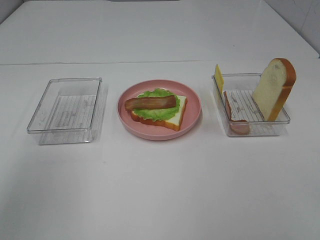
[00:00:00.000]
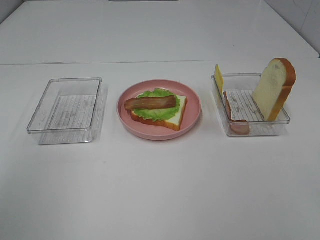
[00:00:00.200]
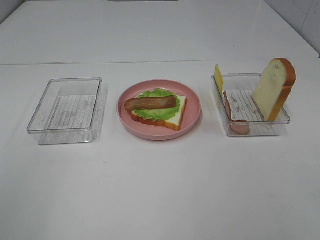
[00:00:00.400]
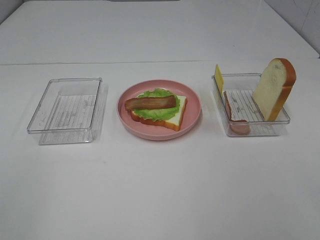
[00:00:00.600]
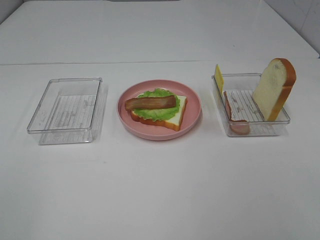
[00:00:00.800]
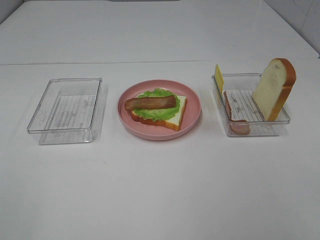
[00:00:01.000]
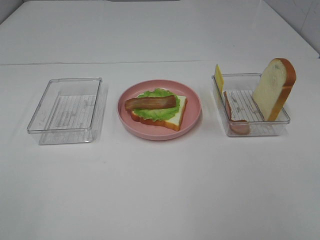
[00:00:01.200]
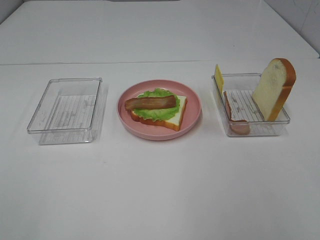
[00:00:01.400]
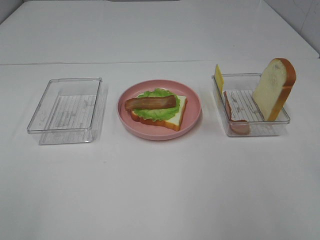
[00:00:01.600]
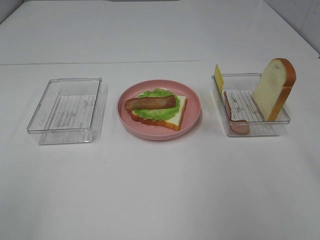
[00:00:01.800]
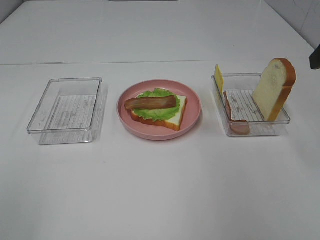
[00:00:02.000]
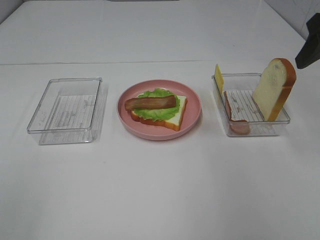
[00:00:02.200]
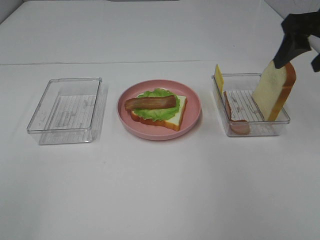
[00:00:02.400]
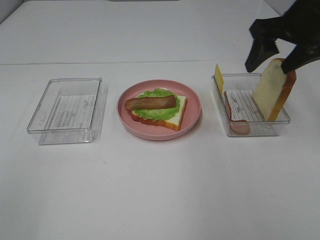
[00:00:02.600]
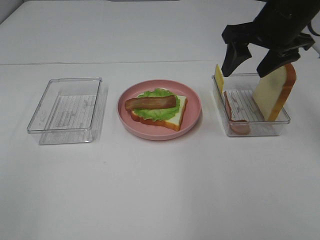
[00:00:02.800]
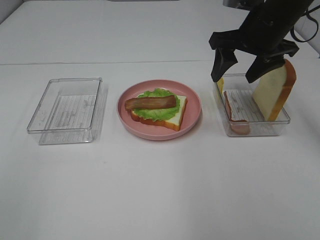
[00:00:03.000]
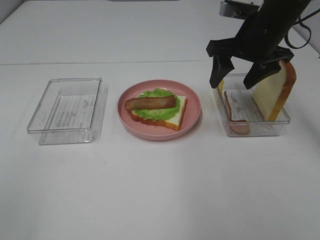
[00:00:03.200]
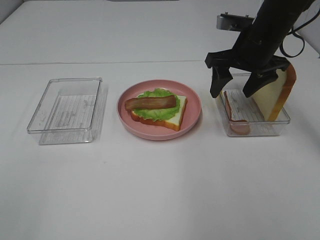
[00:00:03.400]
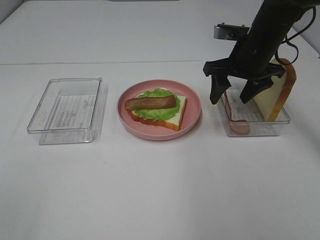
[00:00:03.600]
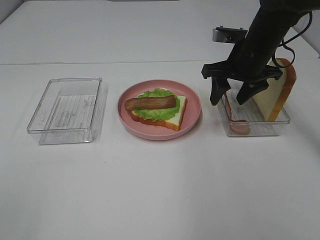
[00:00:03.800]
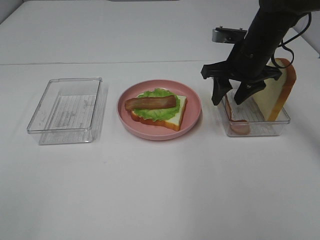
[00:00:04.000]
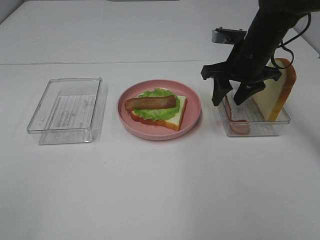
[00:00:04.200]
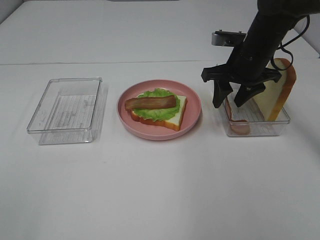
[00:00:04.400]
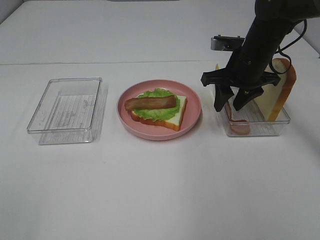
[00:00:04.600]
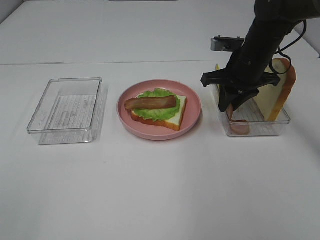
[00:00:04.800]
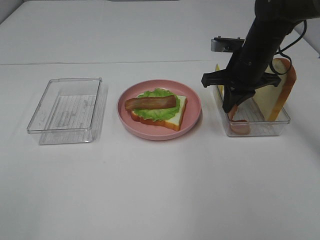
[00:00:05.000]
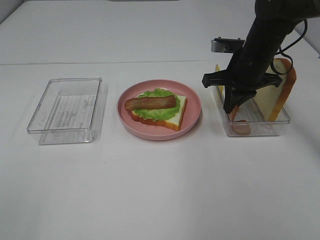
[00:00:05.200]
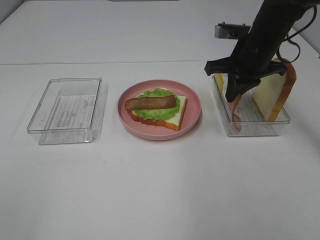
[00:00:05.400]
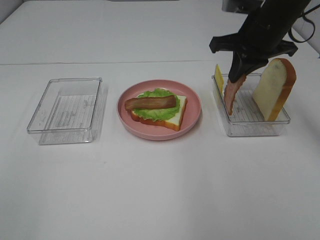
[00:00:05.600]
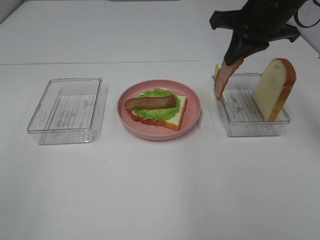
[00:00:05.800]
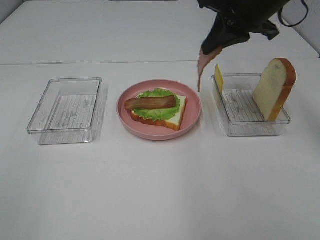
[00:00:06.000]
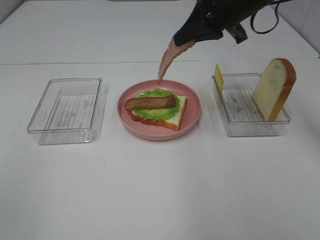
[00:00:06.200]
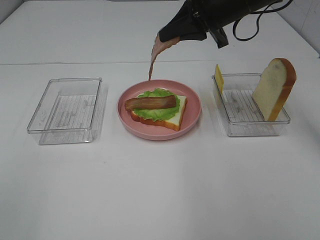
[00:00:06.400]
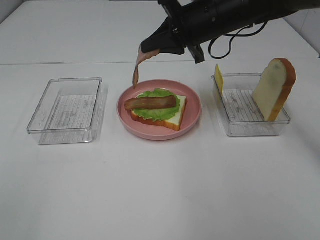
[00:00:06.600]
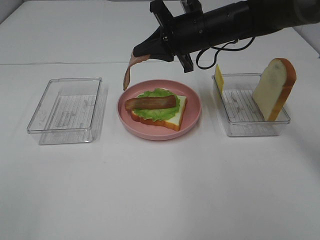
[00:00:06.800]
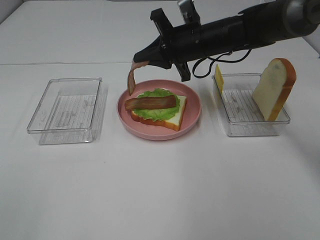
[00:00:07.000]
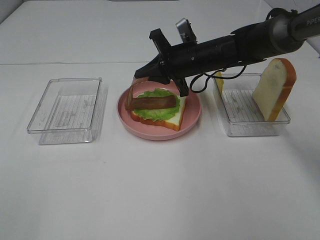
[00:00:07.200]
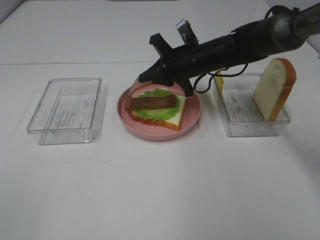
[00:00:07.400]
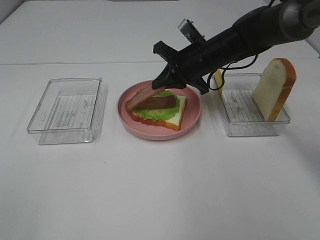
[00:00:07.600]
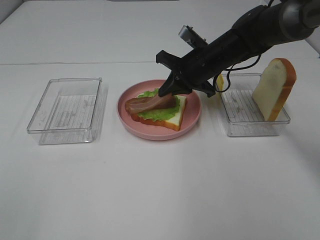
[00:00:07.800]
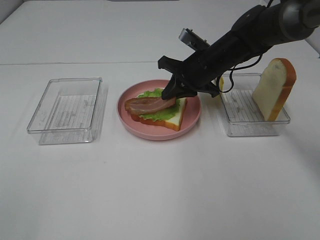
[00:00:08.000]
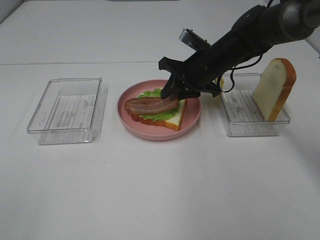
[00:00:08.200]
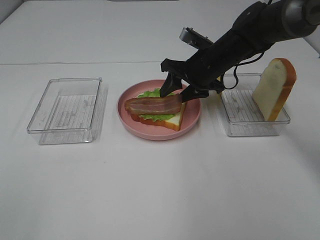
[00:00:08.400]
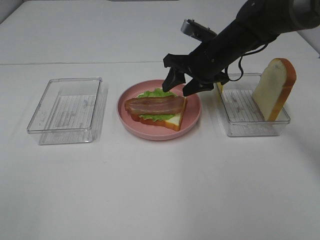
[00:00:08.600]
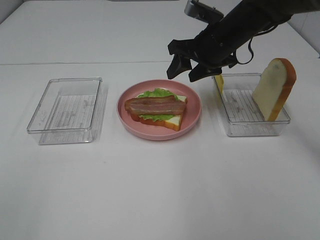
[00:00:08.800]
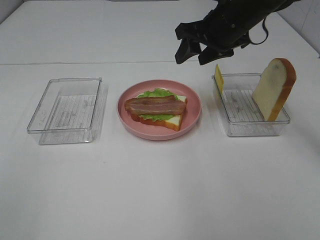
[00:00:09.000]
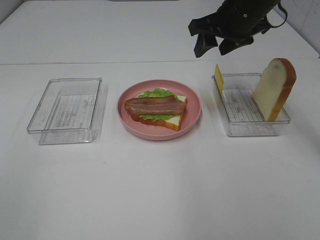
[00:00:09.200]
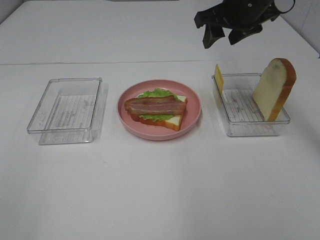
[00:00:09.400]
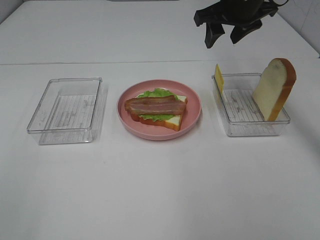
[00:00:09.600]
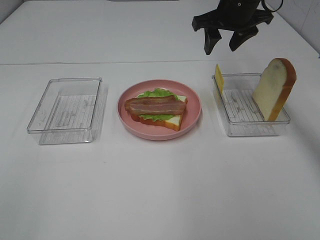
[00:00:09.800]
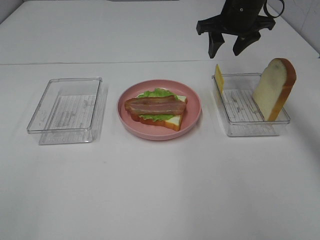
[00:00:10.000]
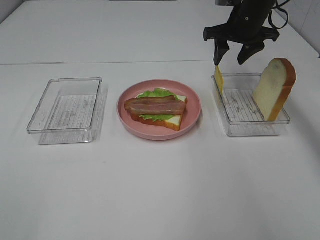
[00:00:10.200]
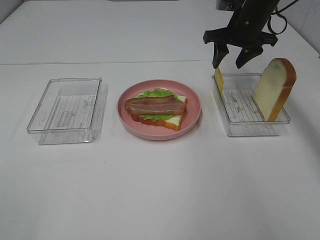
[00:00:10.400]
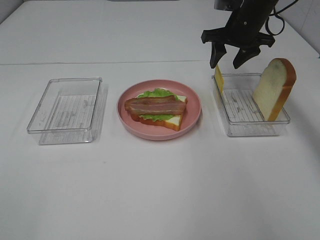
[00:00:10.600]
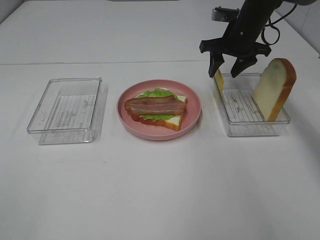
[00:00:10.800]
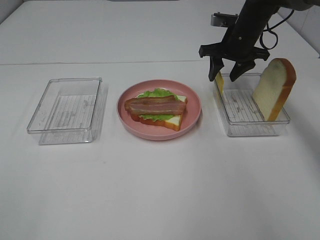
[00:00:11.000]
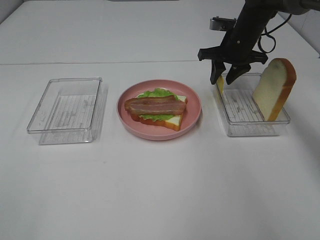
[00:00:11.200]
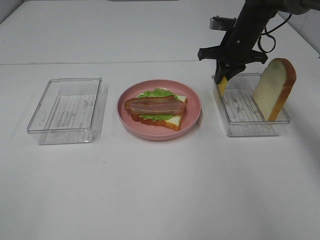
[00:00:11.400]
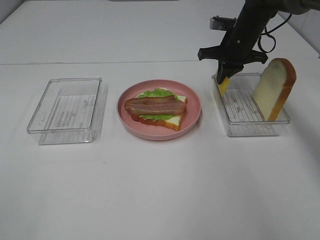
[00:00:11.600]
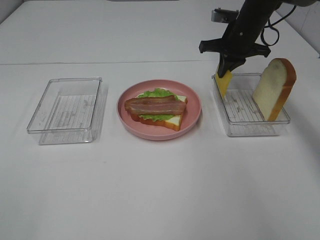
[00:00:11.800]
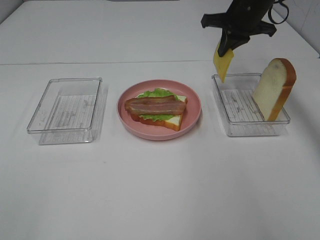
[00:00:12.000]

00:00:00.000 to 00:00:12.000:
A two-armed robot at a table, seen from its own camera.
Task of the whole recording: Make sandwiches.
Step, 00:00:00.000 to 00:00:05.000: Right hand:grab the bacon.
Step, 00:00:05.200 to 00:00:08.600: Right hand:place bacon on bacon.
Step, 00:00:08.800 to 00:00:11.400: Right hand:grab the cheese slice.
00:00:00.000 to 00:00:01.600: The left gripper goes some 20 cm backward and downward.
00:00:01.600 to 00:00:03.000: The right gripper moves forward, roughly 30 cm.
00:00:03.000 to 00:00:04.400: The right gripper travels downward by some 5 cm.
00:00:04.400 to 00:00:06.000: The right gripper travels upward by about 10 cm, and closes.
00:00:06.000 to 00:00:07.600: The right gripper shifts approximately 15 cm downward.
00:00:07.600 to 00:00:09.000: The right gripper heads upward, covering some 10 cm, and opens its fingers.
00:00:09.000 to 00:00:10.400: The right gripper heads forward and to the right, covering about 10 cm.
00:00:10.400 to 00:00:12.000: The right gripper closes.

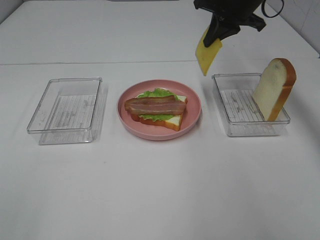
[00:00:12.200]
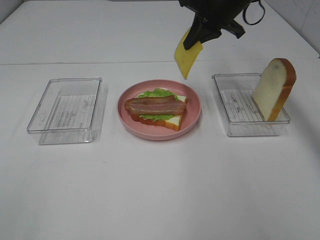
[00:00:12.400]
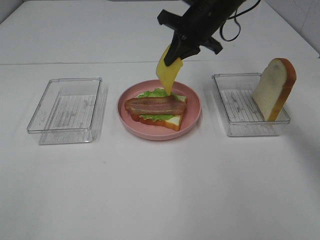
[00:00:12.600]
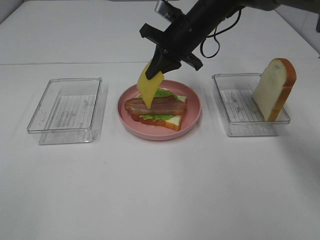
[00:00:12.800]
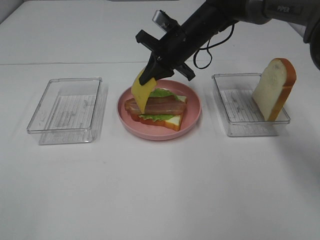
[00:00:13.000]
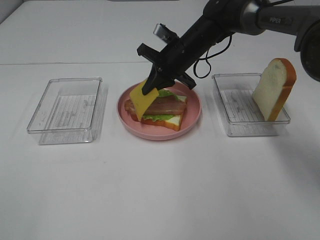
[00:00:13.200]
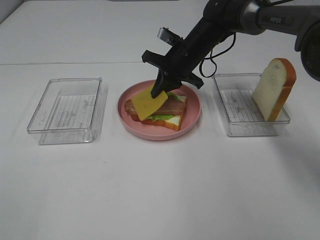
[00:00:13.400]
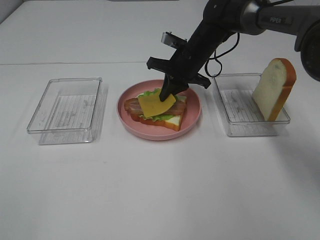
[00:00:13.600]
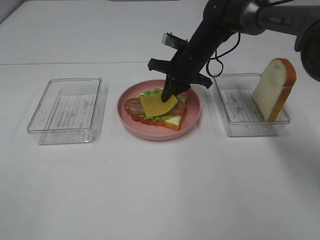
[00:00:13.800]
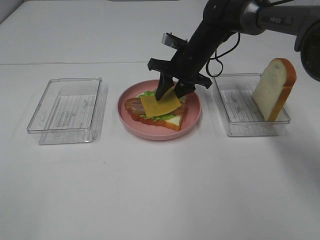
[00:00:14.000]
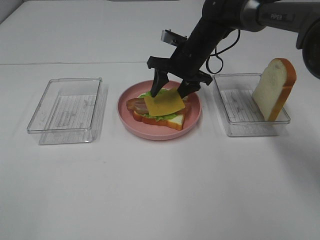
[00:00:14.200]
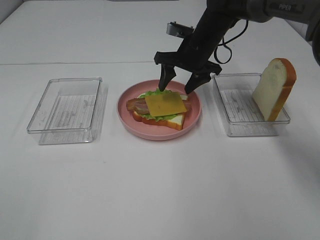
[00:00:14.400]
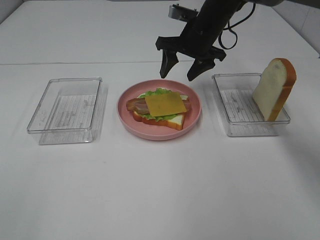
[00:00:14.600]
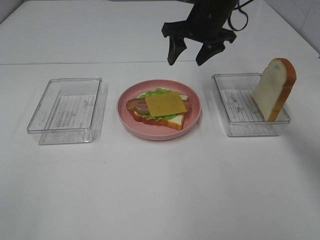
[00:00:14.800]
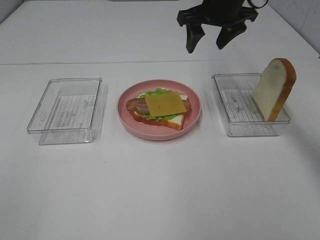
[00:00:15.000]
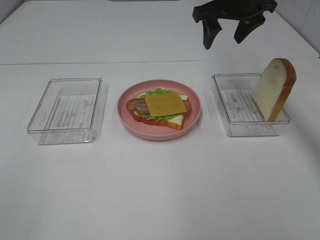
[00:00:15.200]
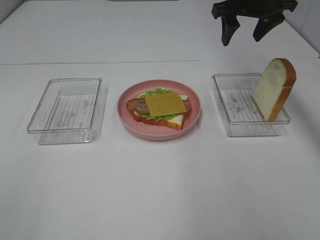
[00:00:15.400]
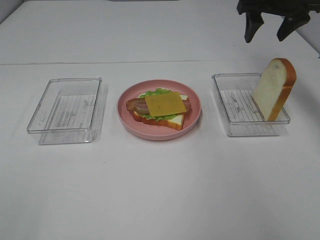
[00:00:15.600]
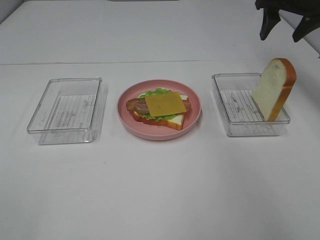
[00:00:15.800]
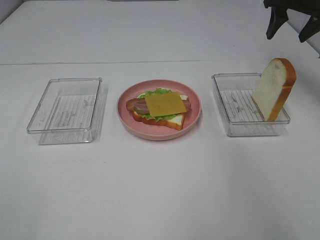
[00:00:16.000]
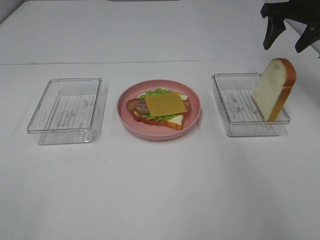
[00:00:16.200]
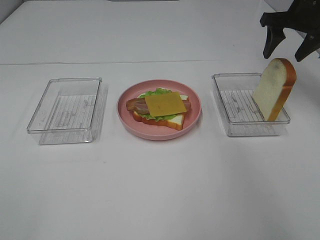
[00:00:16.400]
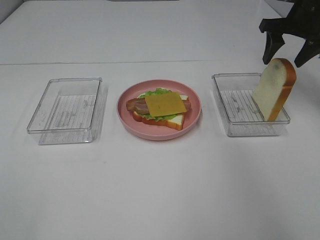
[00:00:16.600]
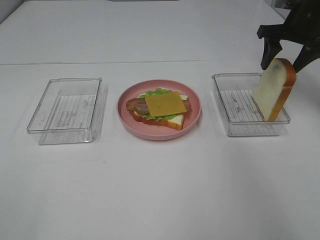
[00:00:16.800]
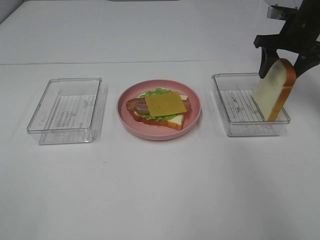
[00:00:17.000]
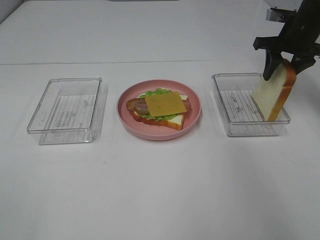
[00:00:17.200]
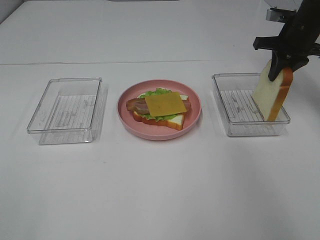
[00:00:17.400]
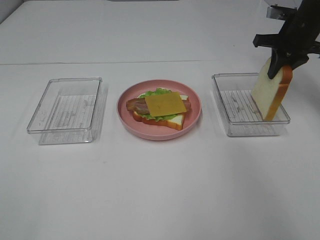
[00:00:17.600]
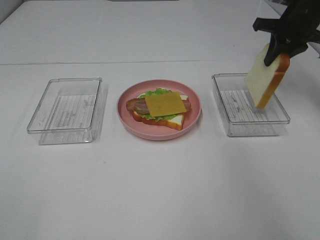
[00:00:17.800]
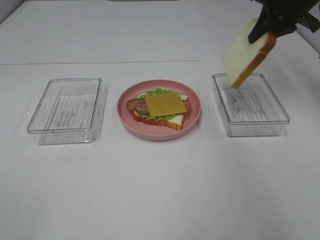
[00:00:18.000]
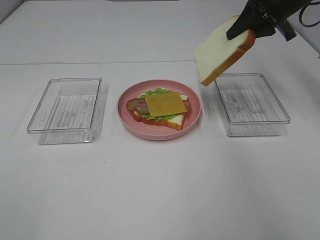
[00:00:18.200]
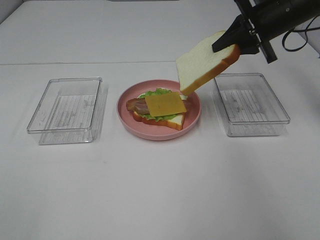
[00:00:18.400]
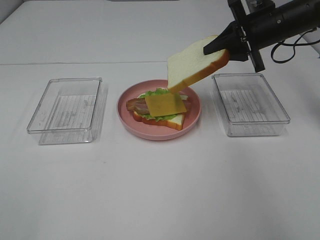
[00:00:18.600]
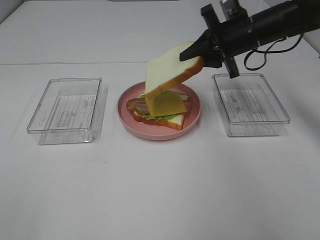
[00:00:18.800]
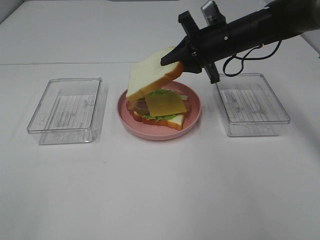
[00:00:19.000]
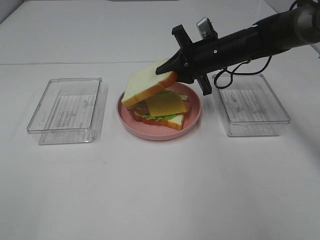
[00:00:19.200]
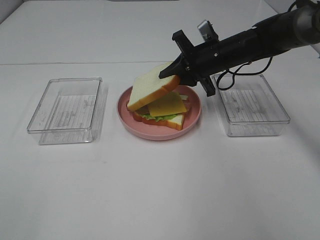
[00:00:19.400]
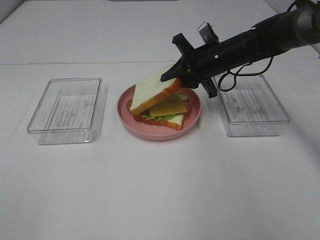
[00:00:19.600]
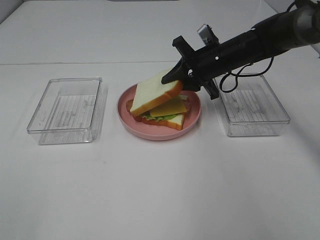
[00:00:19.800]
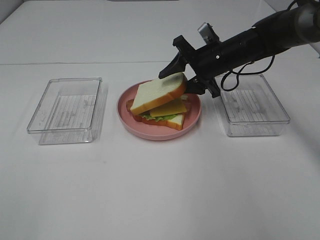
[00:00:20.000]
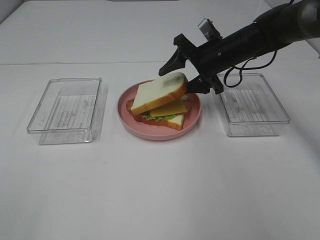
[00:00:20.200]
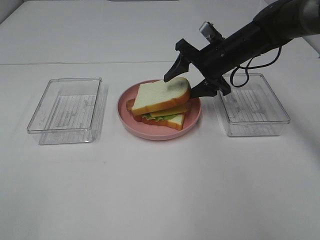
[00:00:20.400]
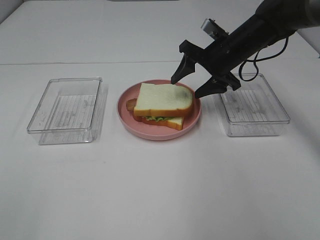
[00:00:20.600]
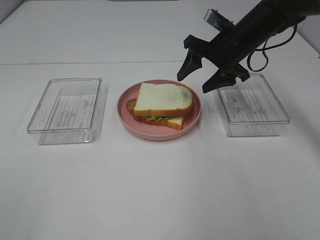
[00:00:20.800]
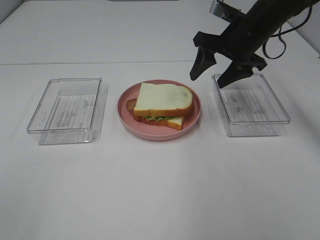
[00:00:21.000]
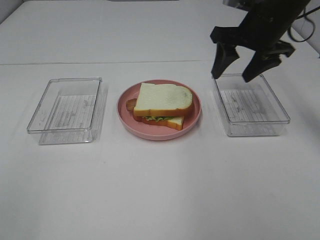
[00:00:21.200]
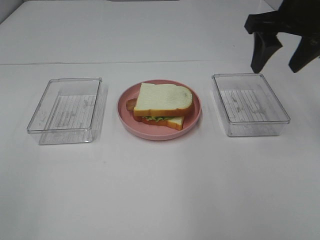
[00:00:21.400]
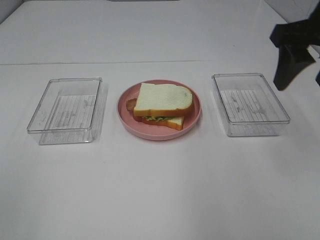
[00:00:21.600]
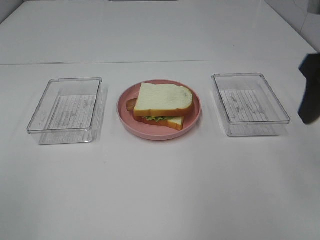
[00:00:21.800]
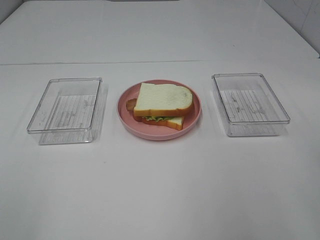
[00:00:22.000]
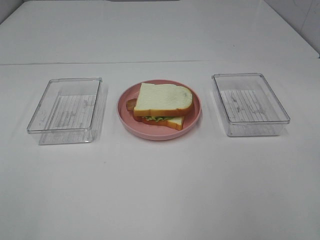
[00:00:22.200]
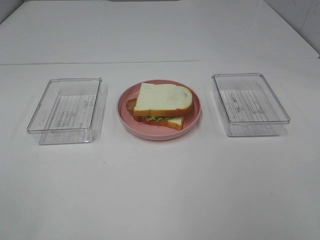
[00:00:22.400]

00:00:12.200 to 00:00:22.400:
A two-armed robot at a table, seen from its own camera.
Task of the whole recording: Make sandwiches.
Step, 00:00:12.200 to 00:00:14.200: Right hand:place the cheese slice on top of the bacon.
Step, 00:00:14.400 to 00:00:17.400: Right hand:grab the bread slice.
Step, 00:00:17.600 to 00:00:20.600: Right hand:place the bread slice on the cheese slice.
00:00:12.200 to 00:00:13.600: The right gripper moves downward and to the left, about 15 cm.
00:00:13.600 to 00:00:15.200: The right gripper shifts roughly 15 cm upward and to the right, and opens up.
00:00:15.200 to 00:00:16.600: The right gripper travels to the right by about 15 cm.
00:00:16.600 to 00:00:18.000: The right gripper ends up approximately 5 cm from where it was, and closes.
00:00:18.000 to 00:00:19.400: The right gripper goes approximately 20 cm downward and to the left.
00:00:19.400 to 00:00:21.000: The right gripper travels upward by approximately 5 cm, and opens its fingers.
00:00:21.000 to 00:00:22.400: The right gripper travels backward by some 35 cm.
